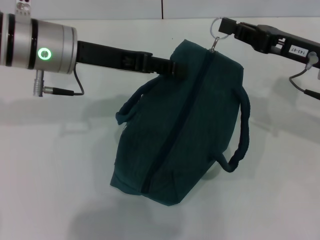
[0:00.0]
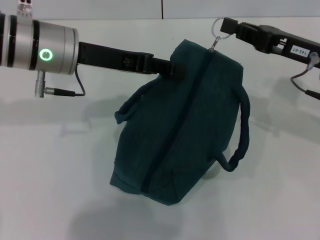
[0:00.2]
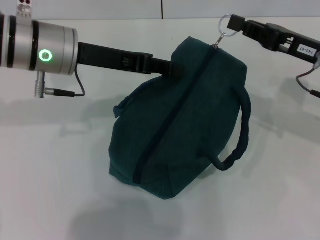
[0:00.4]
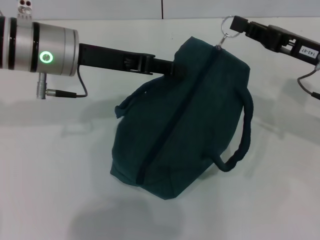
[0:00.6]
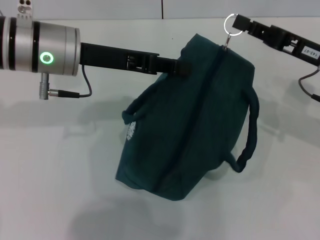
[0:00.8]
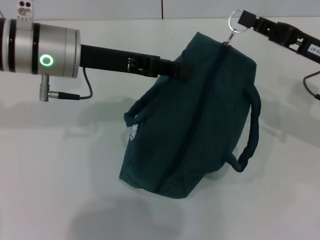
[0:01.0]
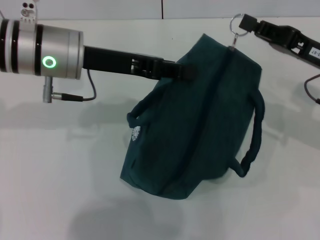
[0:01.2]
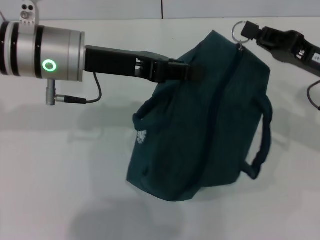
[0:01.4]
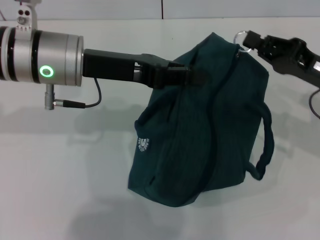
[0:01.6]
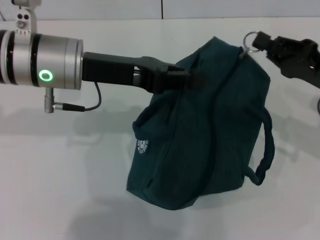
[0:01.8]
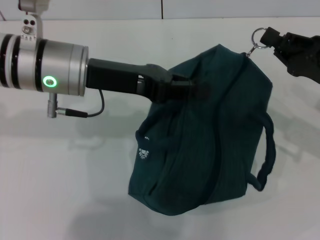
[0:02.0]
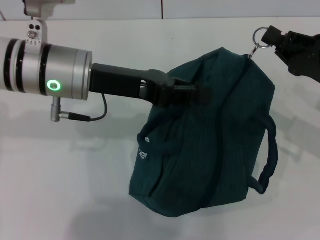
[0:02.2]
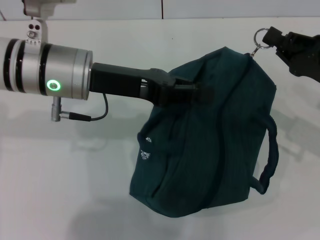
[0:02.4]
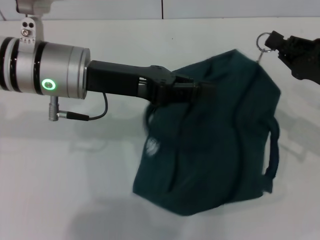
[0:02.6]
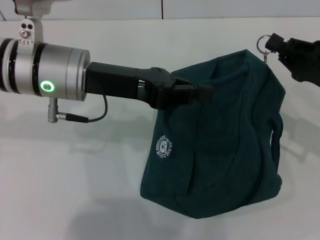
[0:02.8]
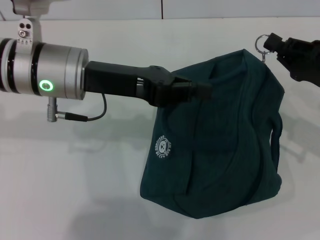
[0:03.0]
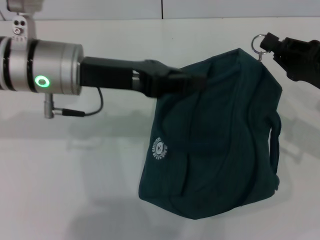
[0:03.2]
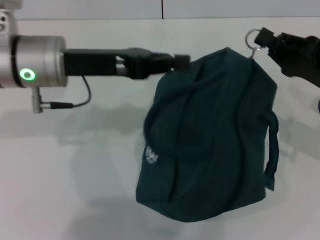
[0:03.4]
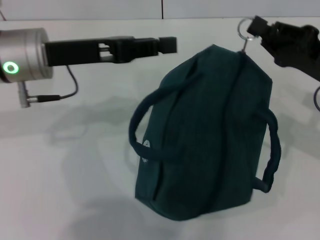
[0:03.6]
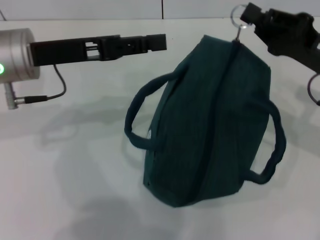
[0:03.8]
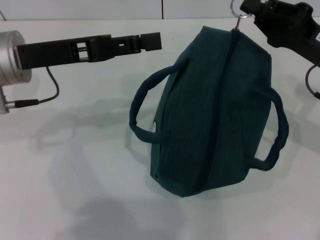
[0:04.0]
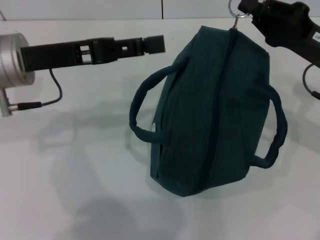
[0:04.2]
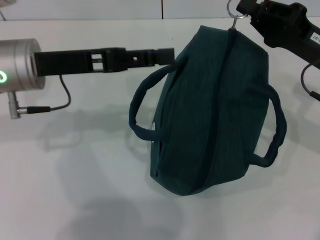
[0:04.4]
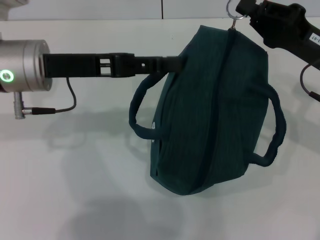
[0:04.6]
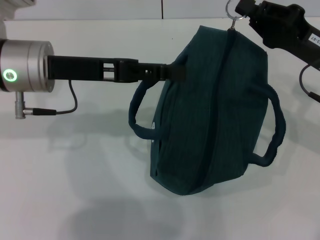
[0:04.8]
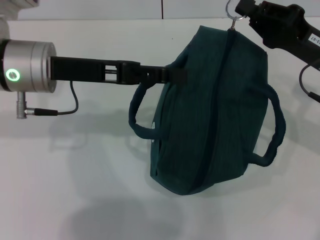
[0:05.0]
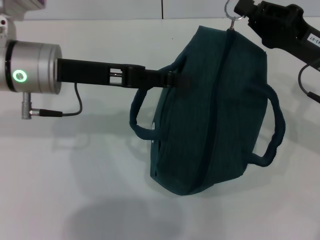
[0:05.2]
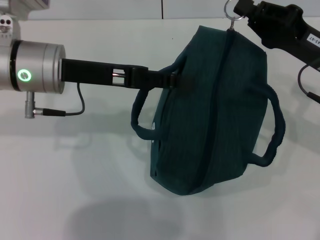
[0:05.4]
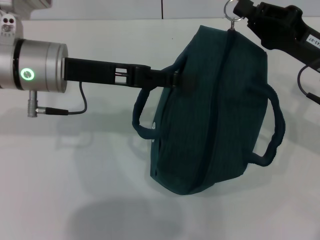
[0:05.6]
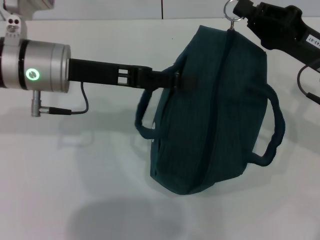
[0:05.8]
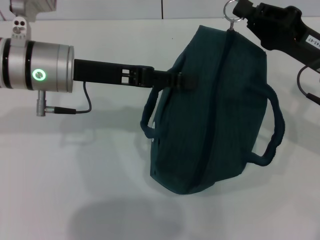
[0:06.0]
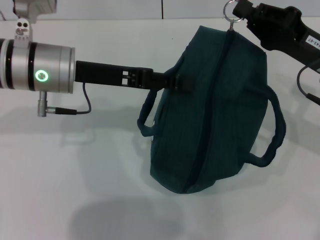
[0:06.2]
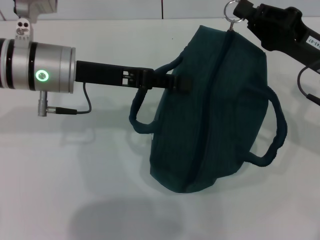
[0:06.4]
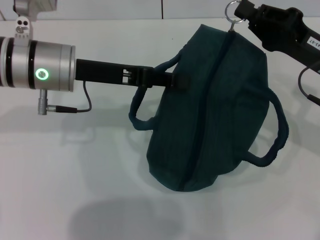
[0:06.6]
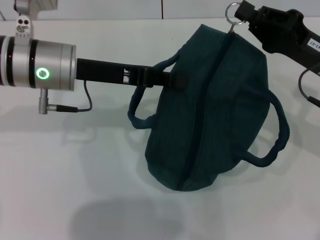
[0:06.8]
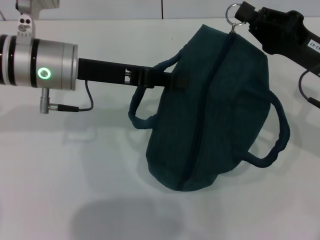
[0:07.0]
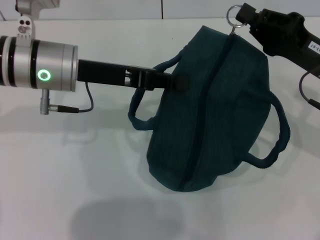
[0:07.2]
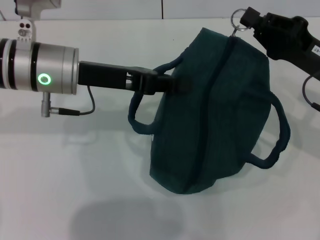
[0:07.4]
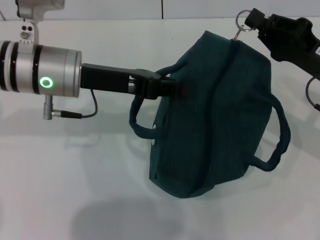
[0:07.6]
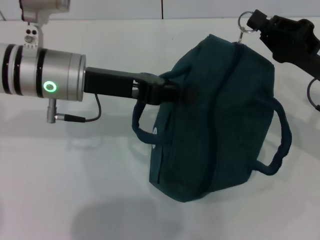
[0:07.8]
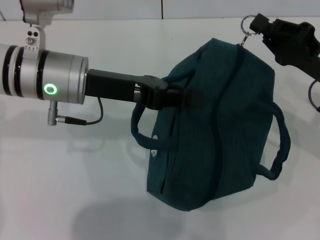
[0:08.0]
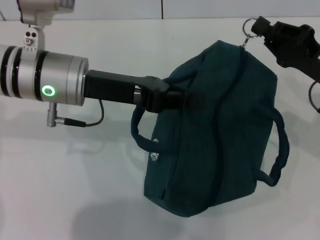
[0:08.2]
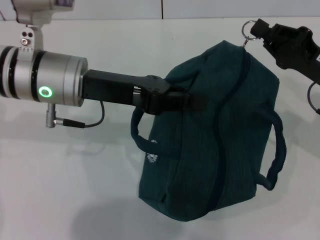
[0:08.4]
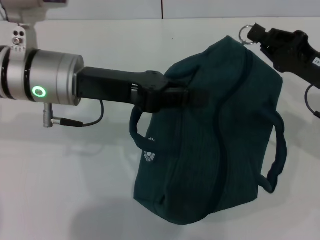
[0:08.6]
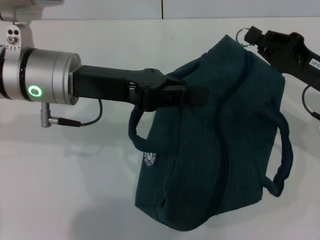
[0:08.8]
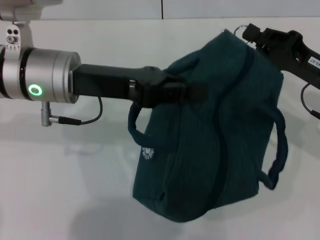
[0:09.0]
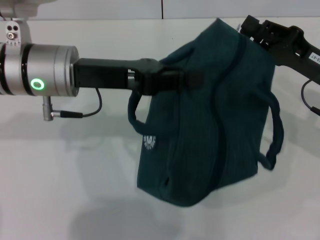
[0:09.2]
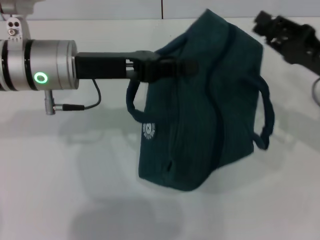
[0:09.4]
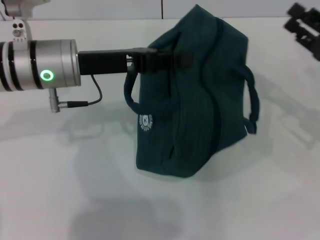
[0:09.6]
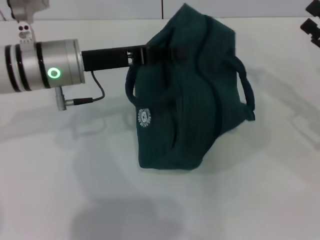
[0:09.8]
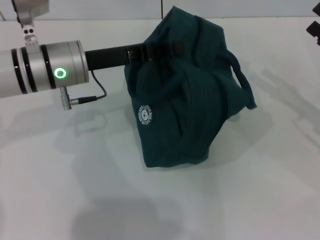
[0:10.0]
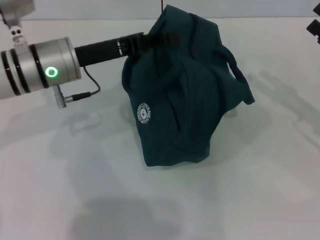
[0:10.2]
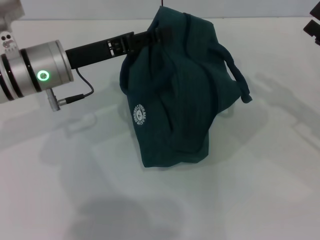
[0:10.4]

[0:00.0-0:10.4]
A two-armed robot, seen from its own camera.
Step, 0:00.0 to 0:09.2: Zip up the lunch bag with your right hand.
0:00.0 to 0:01.4: The left gripper closes up.
0:03.0 to 0:04.4: The right gripper moves approximately 5 cm. Meanwhile the left gripper shifts about 5 cm to the left, and opens up.
0:04.4 to 0:06.0: The grippers make only small movements.
0:06.0 to 0:07.4: The left gripper closes up.
0:09.0 to 0:10.4: The right gripper moves to the right, roughly 5 cm, and opens. The left gripper ends up about 5 cm from where it was, and opens its fingers.

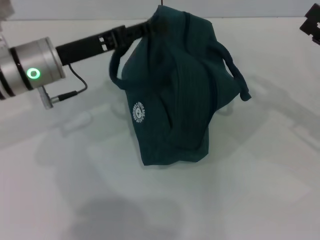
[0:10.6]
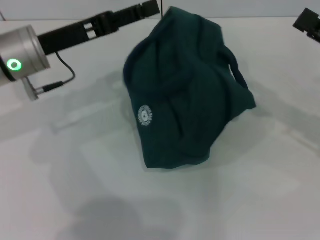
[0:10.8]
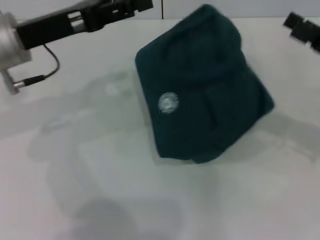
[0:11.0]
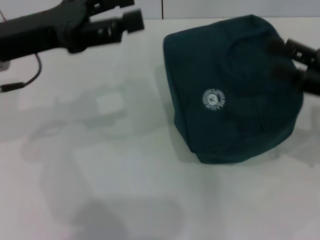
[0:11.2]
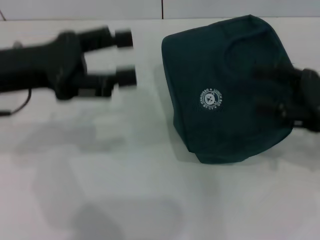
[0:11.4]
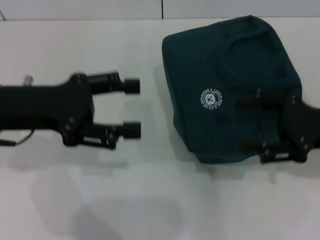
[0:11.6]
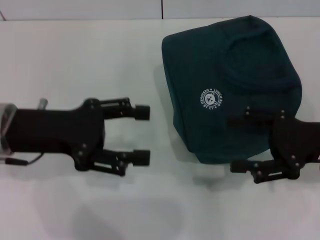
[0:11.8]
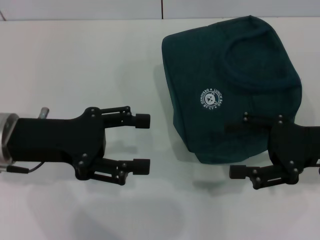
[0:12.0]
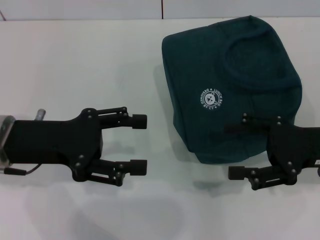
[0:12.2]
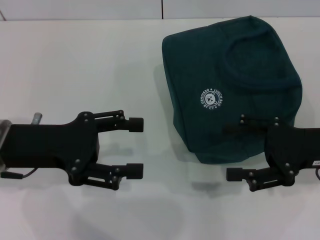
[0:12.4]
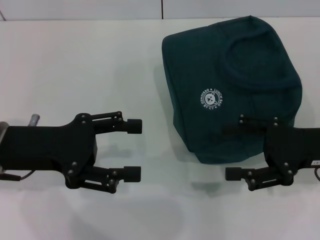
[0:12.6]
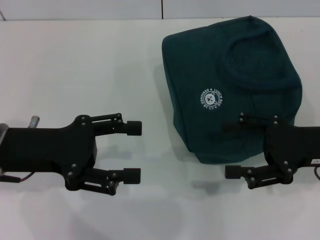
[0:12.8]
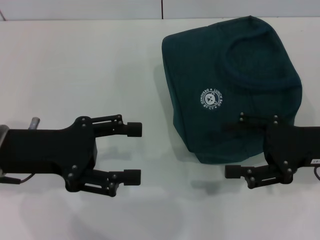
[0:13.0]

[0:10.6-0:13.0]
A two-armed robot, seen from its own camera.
0:10.6 to 0:11.8: The right gripper shifts about 5 cm to the left; the left gripper shifts some 10 cm backward, and opens its fingers.
0:11.8 to 0:13.0: The grippers stay close to where they were, moving slightly.

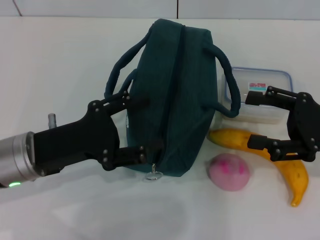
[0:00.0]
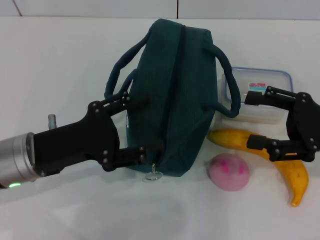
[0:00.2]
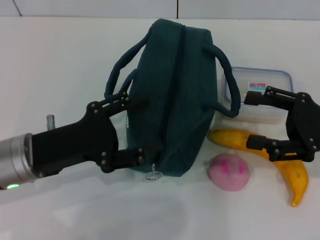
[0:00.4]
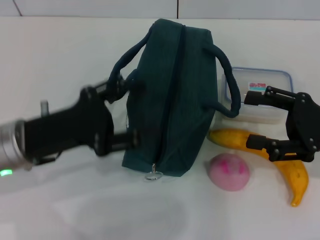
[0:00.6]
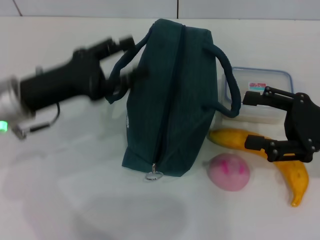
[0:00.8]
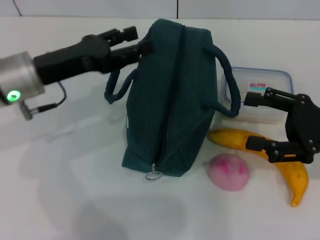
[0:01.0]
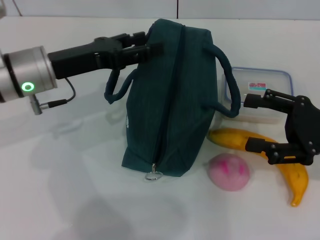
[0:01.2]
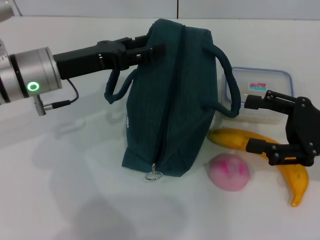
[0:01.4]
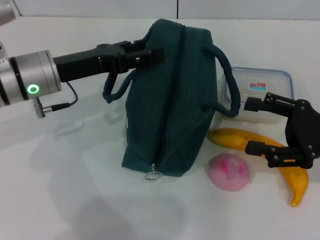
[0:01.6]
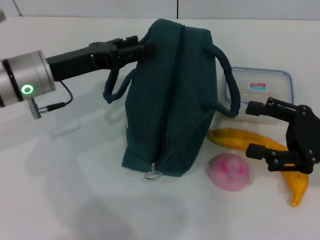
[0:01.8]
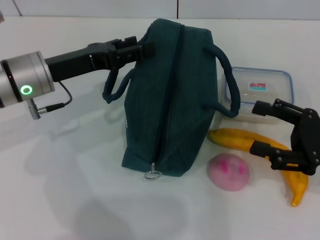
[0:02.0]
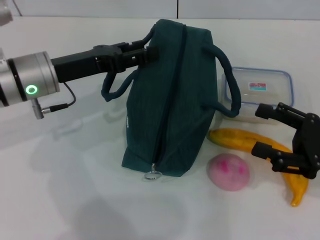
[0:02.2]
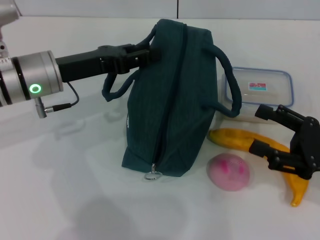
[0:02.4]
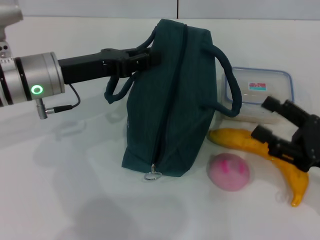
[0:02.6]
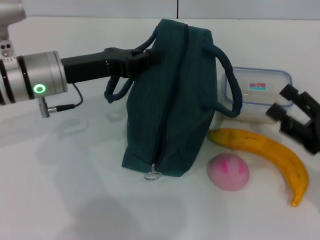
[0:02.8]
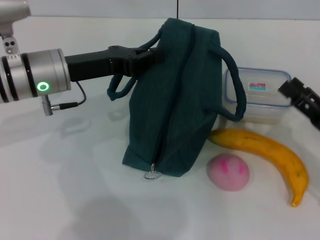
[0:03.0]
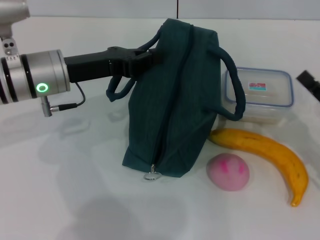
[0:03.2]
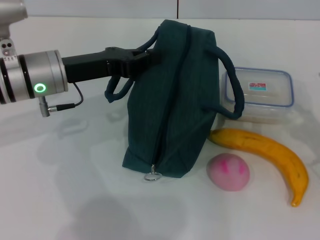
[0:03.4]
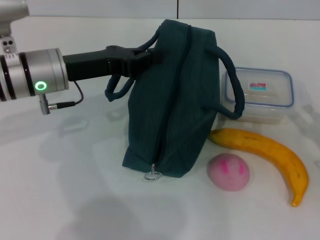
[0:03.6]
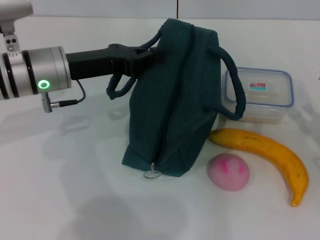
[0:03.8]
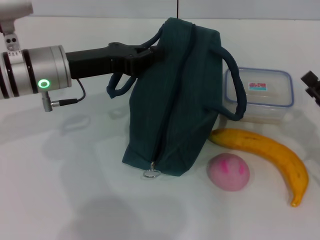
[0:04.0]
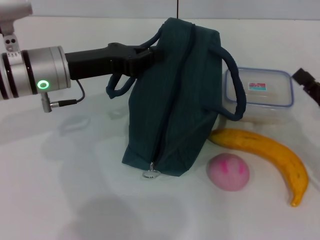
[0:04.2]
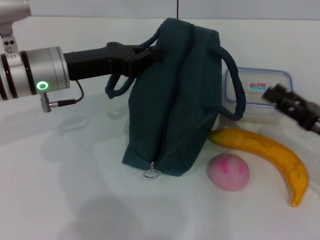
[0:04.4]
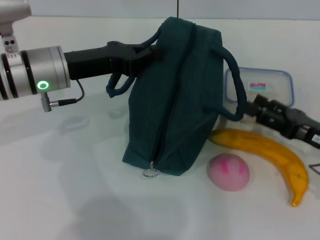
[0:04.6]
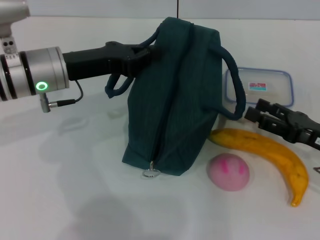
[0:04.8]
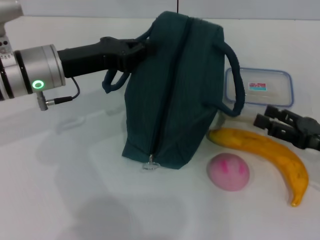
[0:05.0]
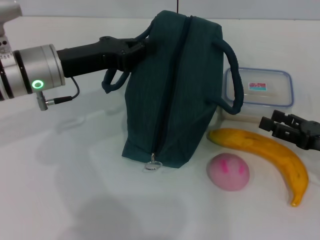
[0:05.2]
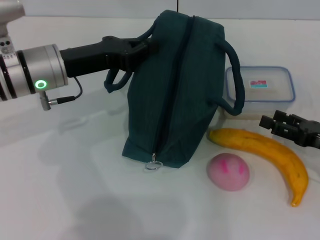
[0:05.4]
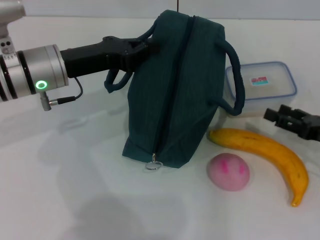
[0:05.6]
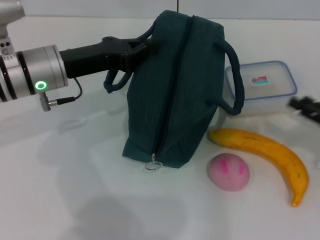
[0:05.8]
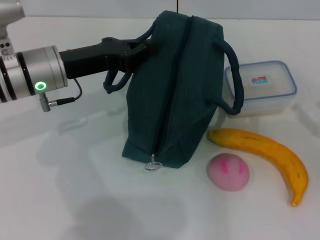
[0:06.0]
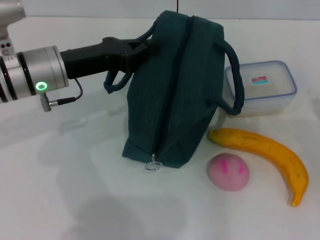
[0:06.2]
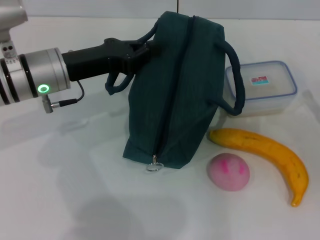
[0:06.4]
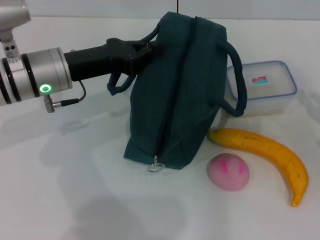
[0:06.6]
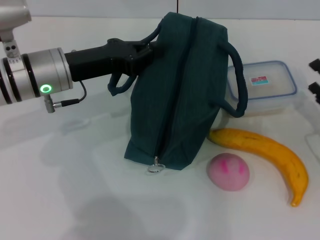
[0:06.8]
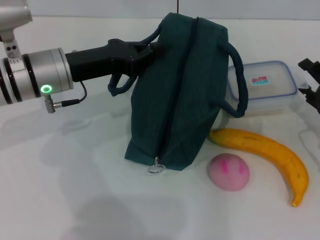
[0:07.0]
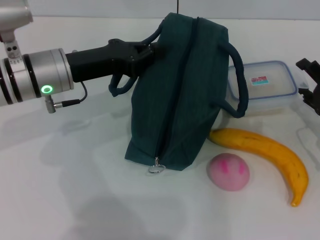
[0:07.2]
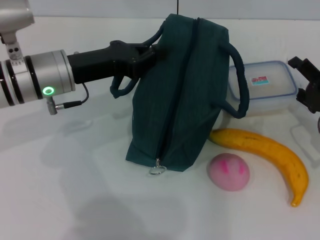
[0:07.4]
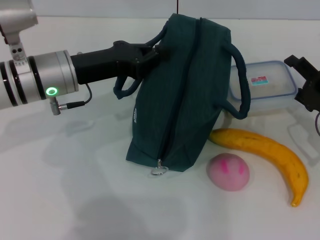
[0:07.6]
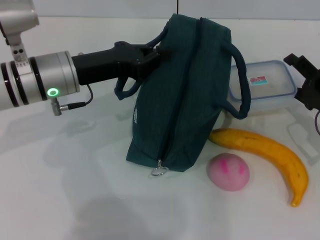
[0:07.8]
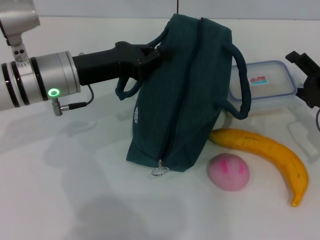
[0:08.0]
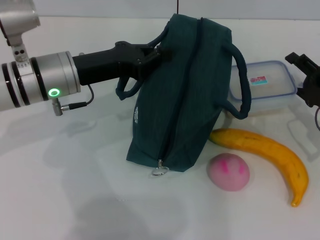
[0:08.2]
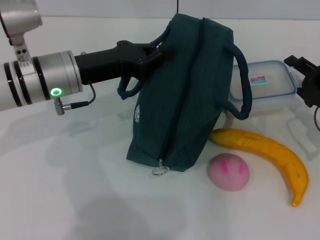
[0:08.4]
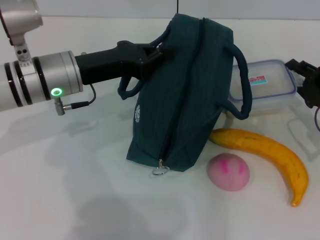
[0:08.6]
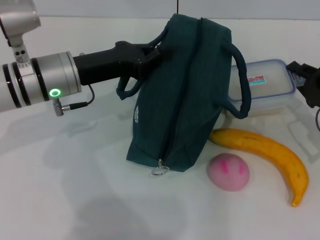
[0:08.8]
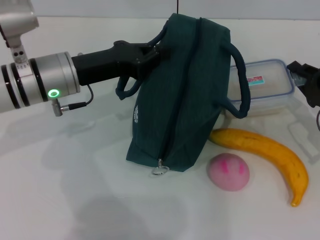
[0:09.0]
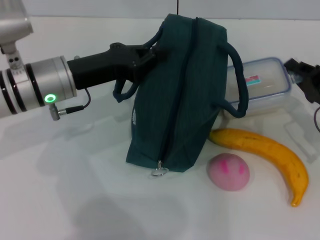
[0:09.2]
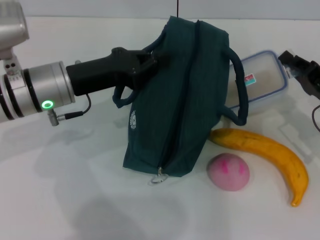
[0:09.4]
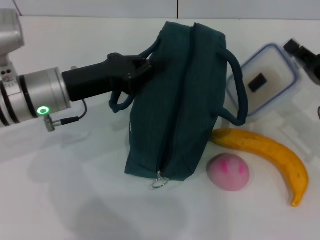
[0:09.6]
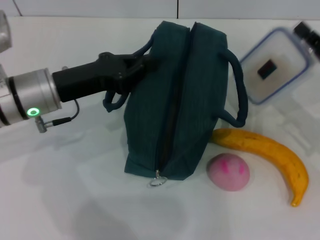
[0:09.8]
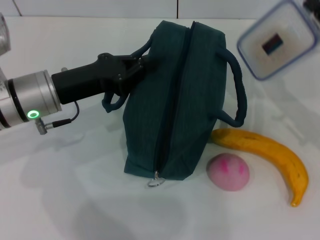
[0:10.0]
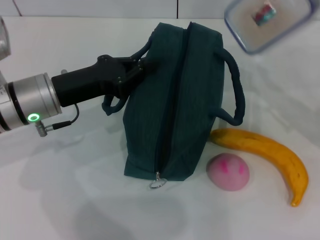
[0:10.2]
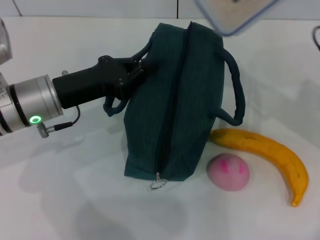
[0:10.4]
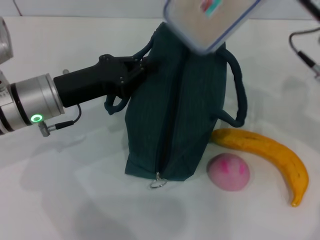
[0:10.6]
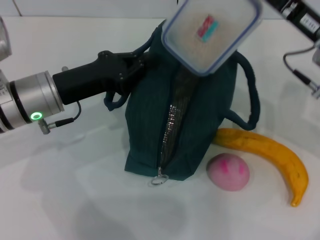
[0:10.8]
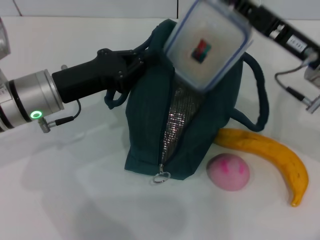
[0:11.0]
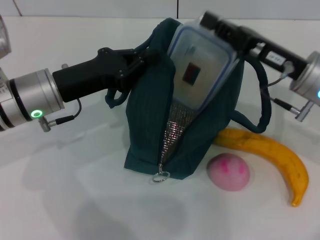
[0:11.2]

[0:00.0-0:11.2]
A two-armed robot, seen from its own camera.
Step, 0:00.0 to 0:06.2: Hold the lunch bag with your left hand.
Step, 0:06.6 to 0:09.0: Pick up the lunch box with your right hand.
0:00.0 to 0:01.6: The left gripper is displaced forward by approximately 10 cm.
0:01.6 to 0:03.2: The right gripper is displaced downward by some 5 cm; the left gripper closes.
0:04.8 to 0:06.4: The right gripper moves to the right, roughly 5 cm.
0:06.4 to 0:08.0: The right gripper goes some 10 cm forward and to the left.
0:08.0 to 0:09.6: The right gripper closes.
0:09.6 to 0:11.2: The right gripper travels to the left and upward by approximately 10 cm.
